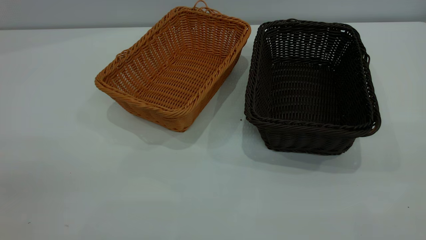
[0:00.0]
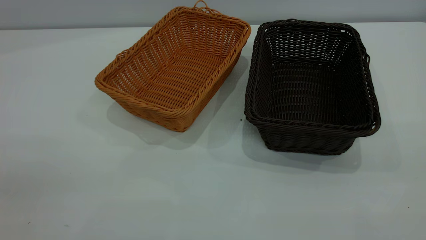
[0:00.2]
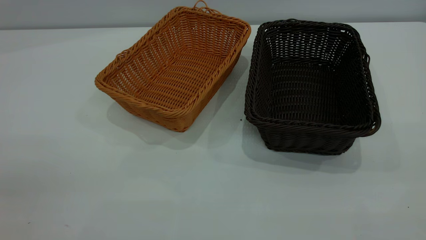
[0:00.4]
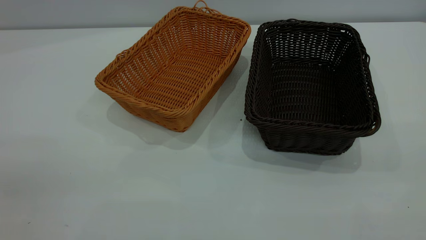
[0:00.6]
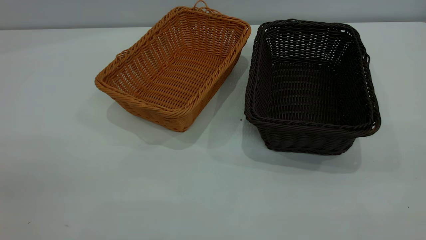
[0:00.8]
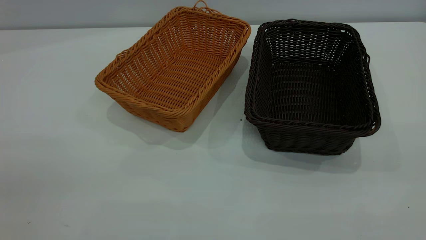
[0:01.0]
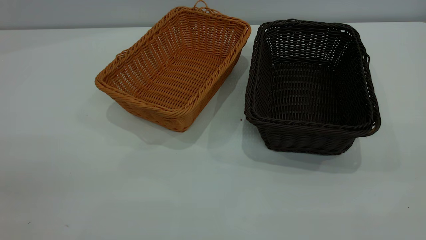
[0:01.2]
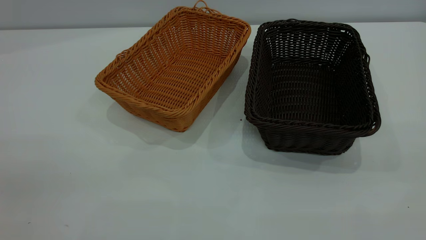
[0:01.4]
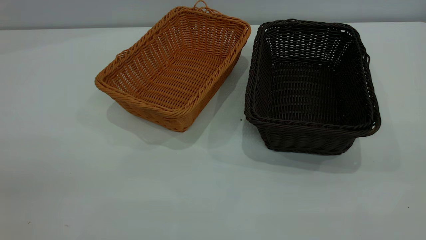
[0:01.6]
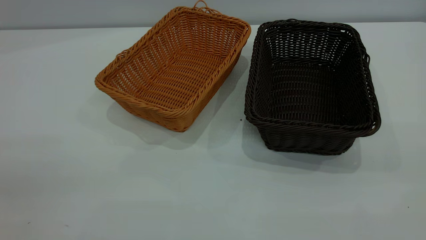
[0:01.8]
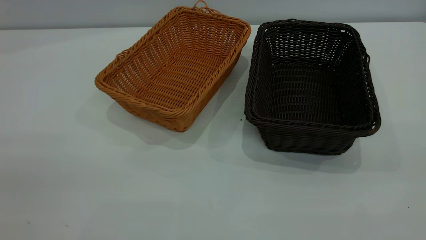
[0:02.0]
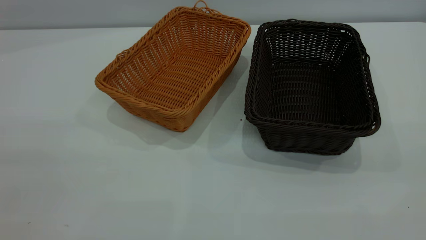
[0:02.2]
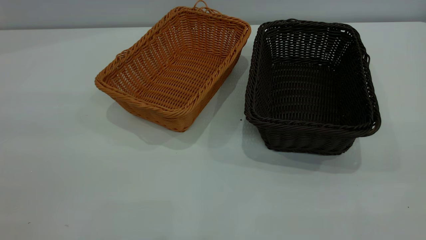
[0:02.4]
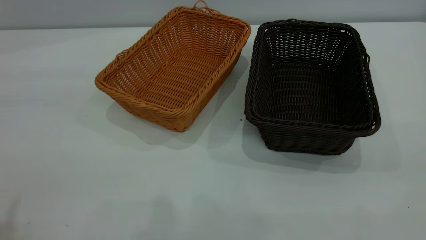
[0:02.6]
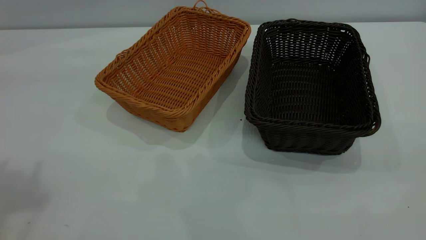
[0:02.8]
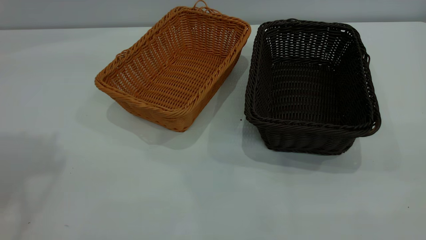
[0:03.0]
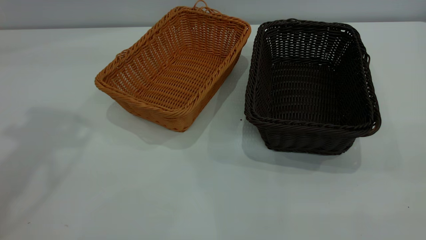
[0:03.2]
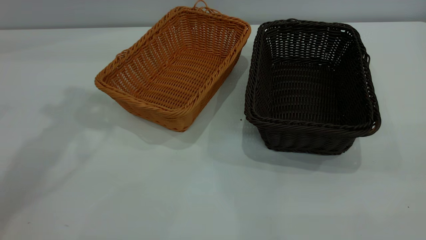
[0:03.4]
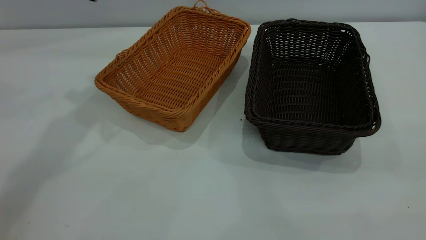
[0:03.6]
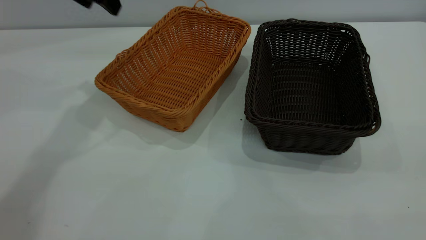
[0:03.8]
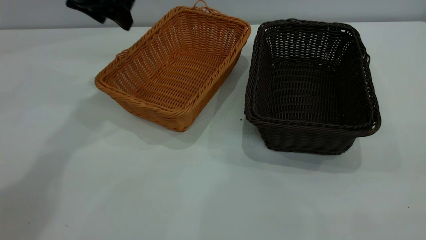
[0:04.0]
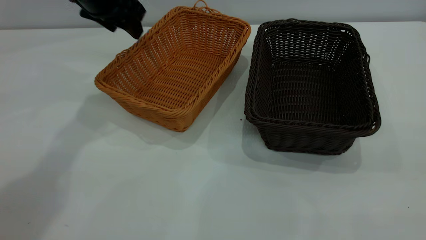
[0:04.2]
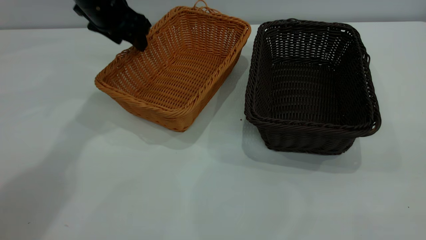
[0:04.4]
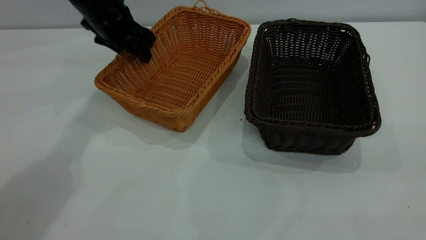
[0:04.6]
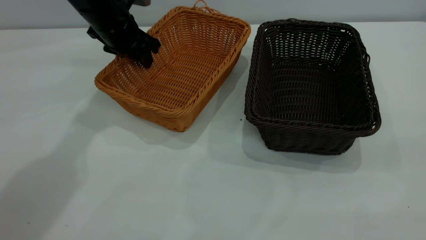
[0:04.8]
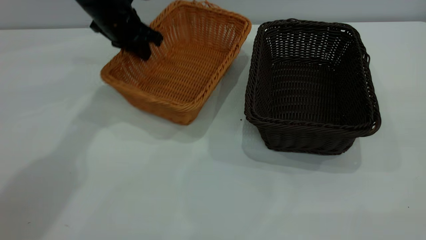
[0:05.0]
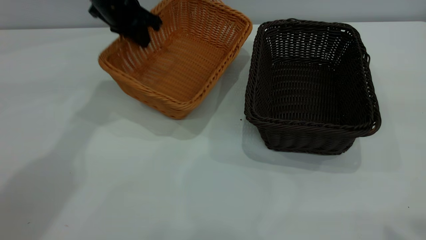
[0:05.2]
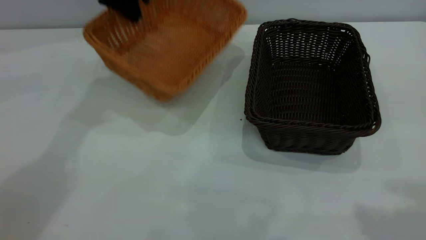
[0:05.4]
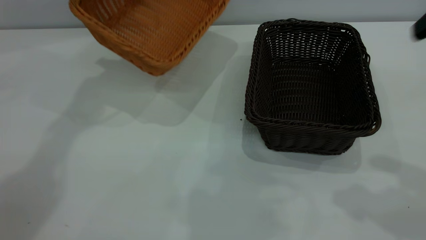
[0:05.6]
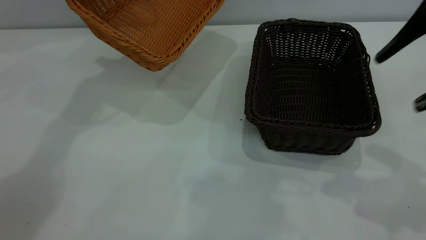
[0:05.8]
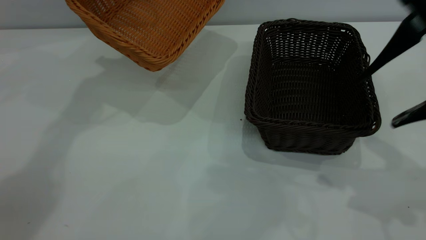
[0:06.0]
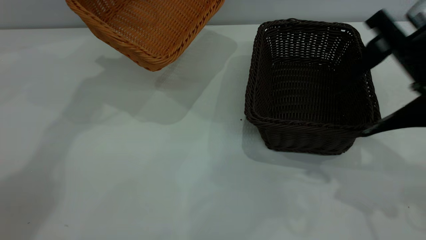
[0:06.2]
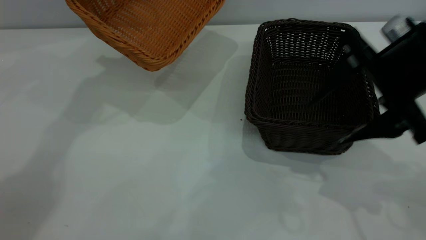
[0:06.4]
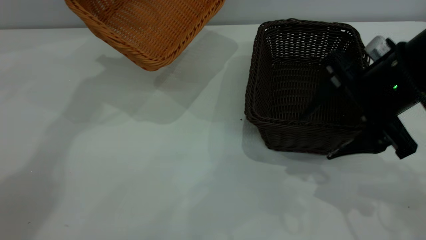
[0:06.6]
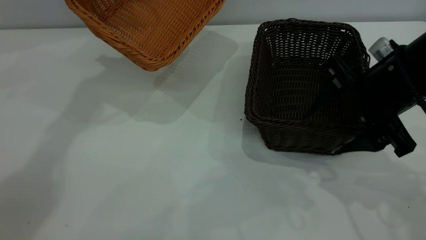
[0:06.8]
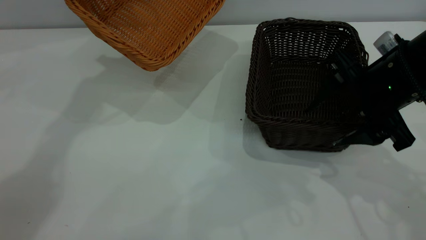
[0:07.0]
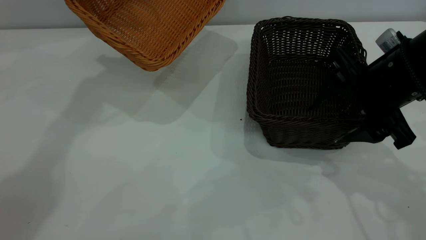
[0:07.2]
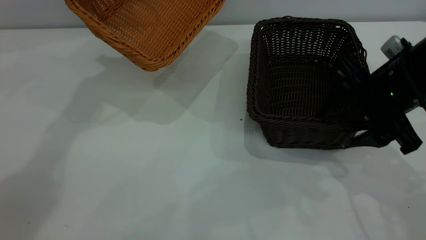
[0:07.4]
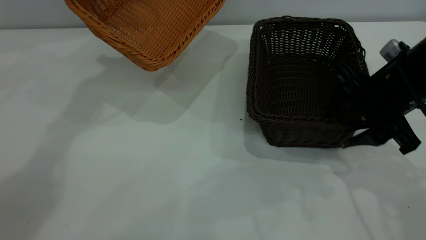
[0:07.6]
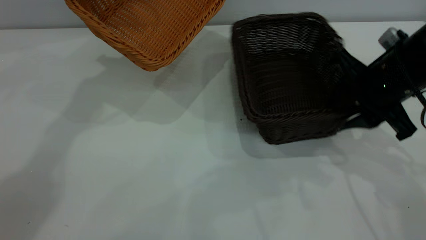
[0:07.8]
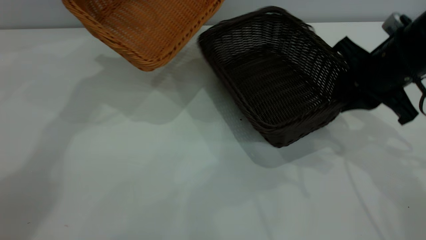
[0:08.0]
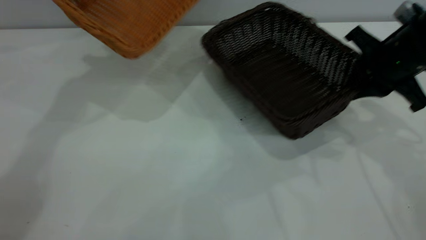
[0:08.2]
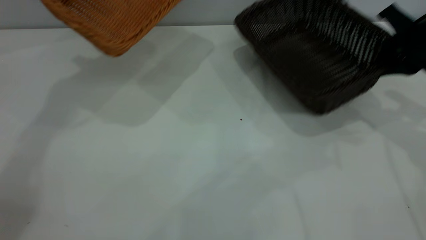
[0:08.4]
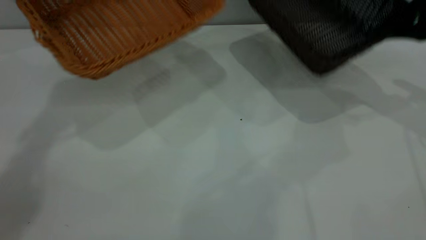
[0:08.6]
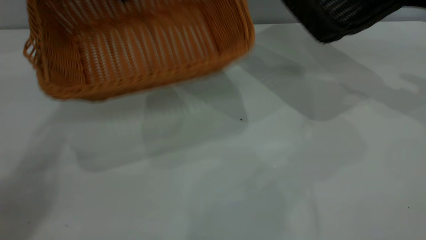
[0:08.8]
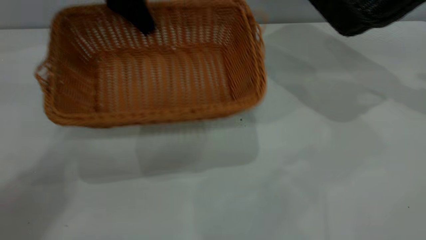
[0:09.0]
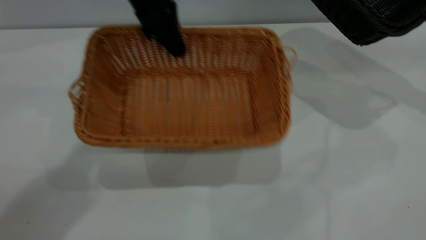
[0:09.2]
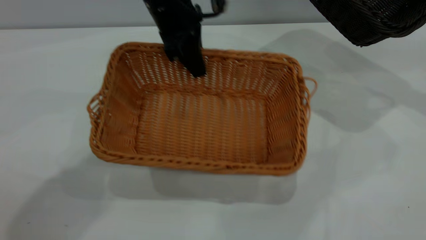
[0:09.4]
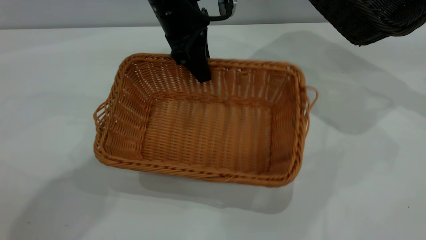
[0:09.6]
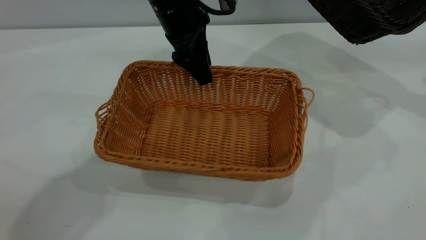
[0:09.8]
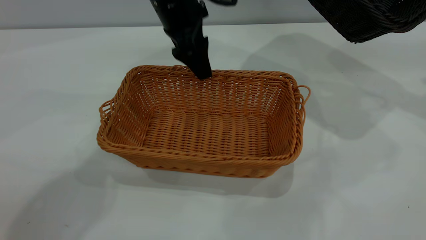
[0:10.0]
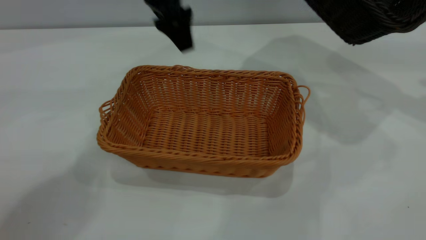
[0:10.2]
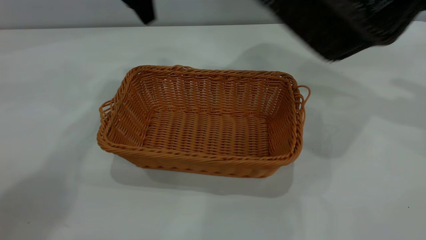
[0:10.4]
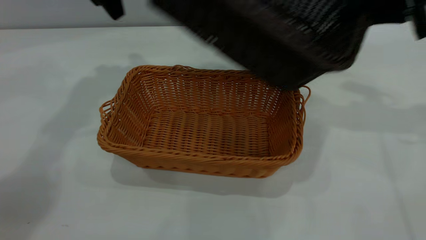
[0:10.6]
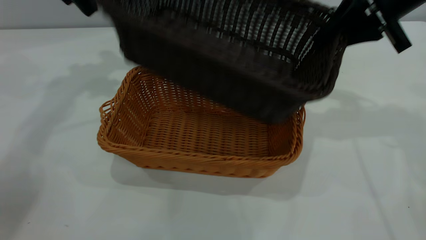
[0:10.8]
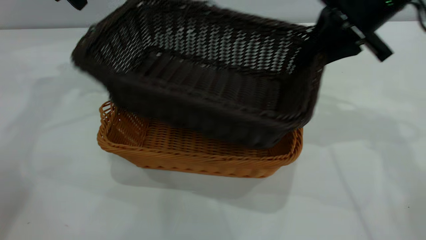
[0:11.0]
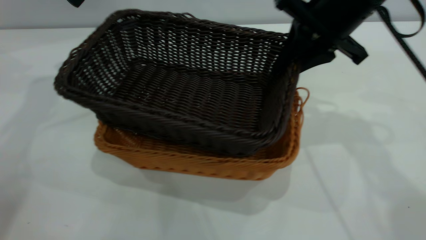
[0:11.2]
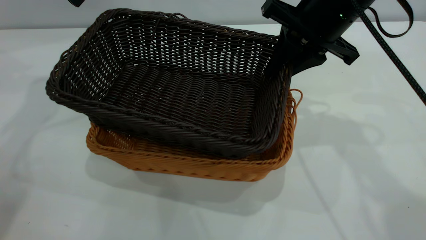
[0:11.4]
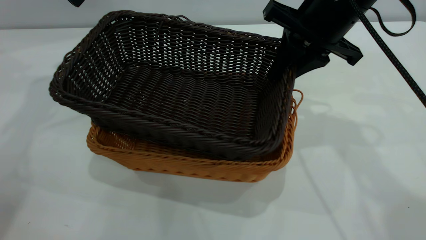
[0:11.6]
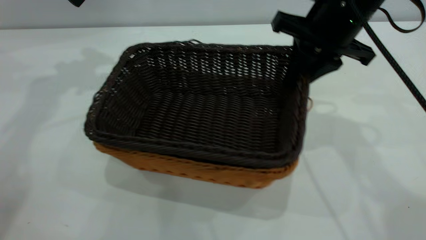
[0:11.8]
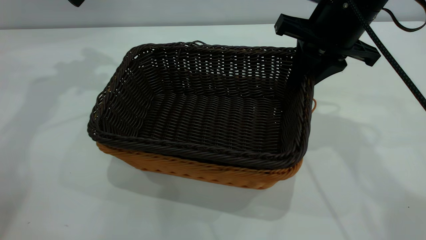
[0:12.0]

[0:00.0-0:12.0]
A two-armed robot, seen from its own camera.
Task of the whole recording: the left gripper grasp the brown basket and place it in the center of the table, the right gripper grasp the black basket and place it inside the brown one.
Step, 0:00.0 to 0:08.2: Pick up the light basket with the right gripper.
Step, 0:08.6 to 0:10.2: Place the light-colored basket in the center.
0:00.0 to 0:01.6: The two grippers keep their place.
0:03.0 to 0:04.4: The left gripper is displaced downward, forward and to the right by about 35 cm.
0:04.4 to 0:06.0: The right gripper goes roughly 30 cm forward and downward, while the left gripper goes about 10 cm upward, and closes its fingers.
0:06.0 to 0:07.6: The right gripper heads downward, covering about 10 cm.
0:07.6 to 0:09.0: The left gripper goes roughly 5 cm to the right. Meanwhile the right gripper shifts about 25 cm to the right, forward and upward, and closes.
0:09.0 to 0:10.4: The left gripper goes to the right and returns, about 10 cm each way, and opens its fingers. The right gripper moves to the left, approximately 5 cm.
0:10.4 to 0:12.0: The two grippers go about 15 cm to the left.

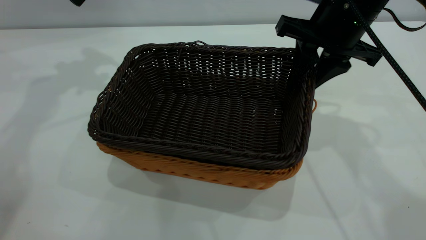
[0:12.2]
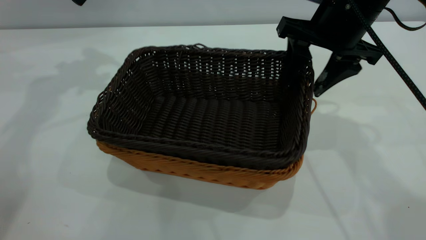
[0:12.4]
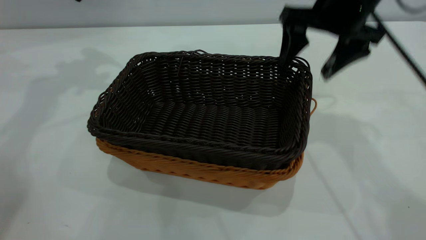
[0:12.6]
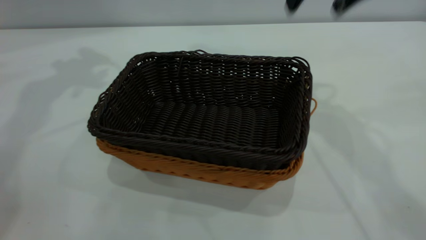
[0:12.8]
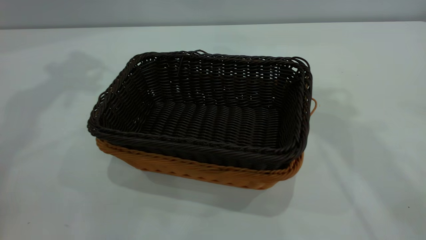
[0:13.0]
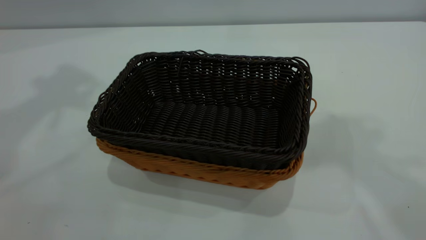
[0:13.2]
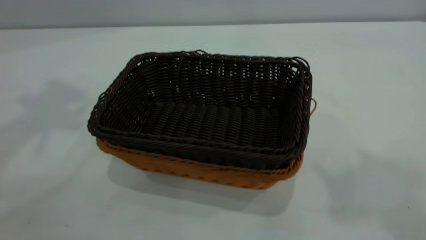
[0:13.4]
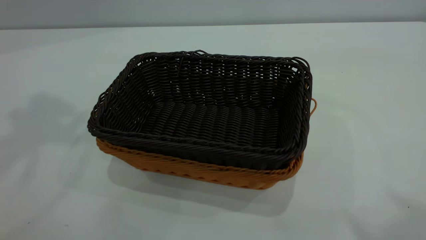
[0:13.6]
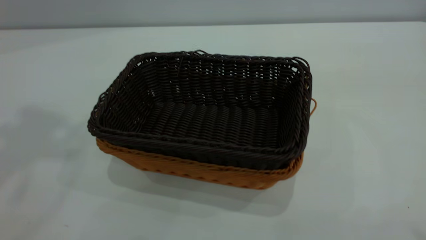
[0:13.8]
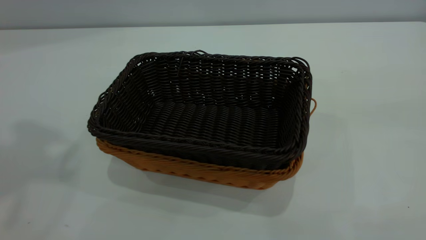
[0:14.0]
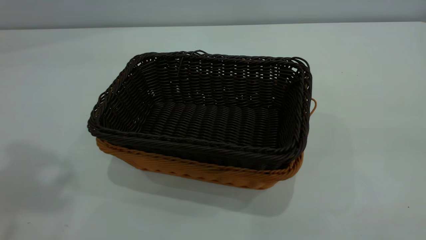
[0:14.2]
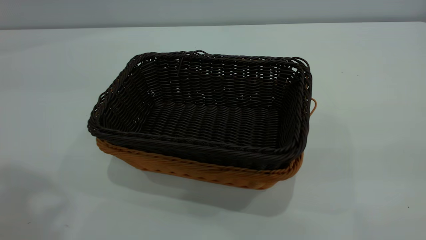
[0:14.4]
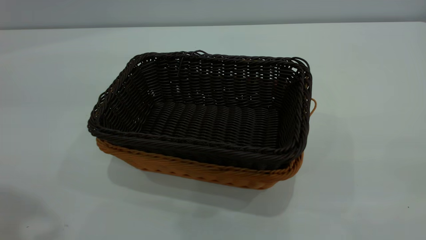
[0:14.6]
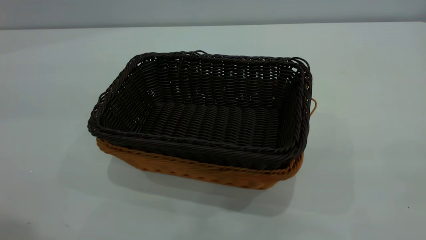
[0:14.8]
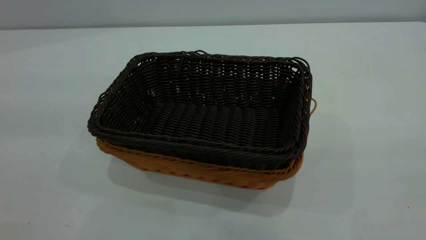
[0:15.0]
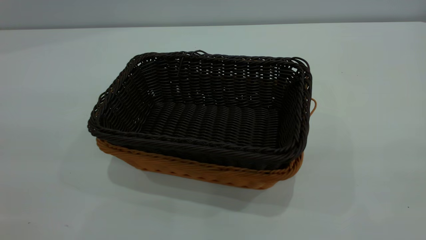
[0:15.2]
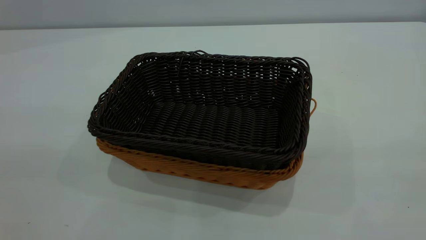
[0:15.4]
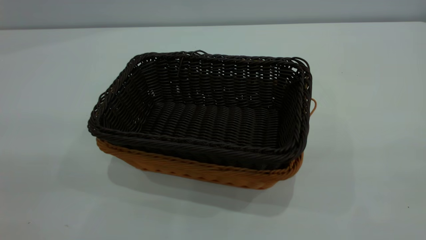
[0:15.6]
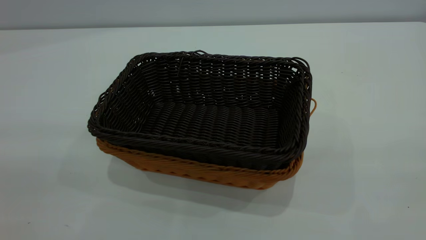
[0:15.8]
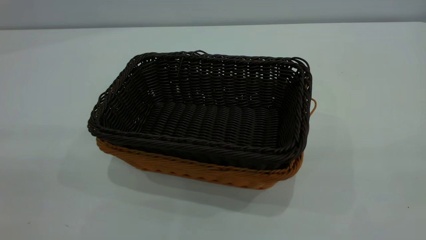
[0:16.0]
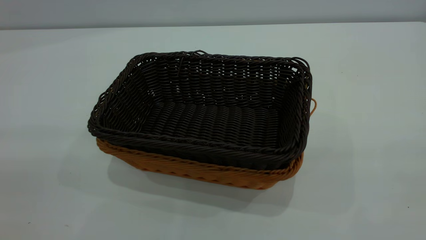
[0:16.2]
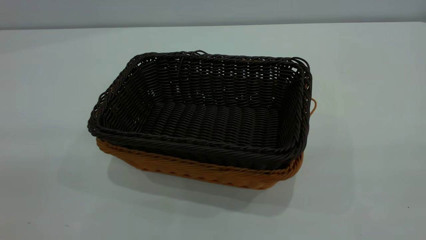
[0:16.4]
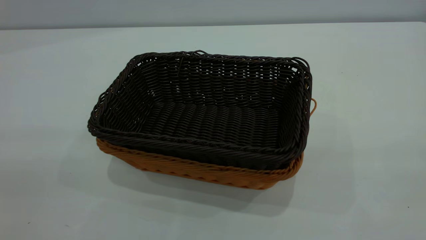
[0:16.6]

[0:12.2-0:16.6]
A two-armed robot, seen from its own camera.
Task of the whole recording: the left gripper grasp the brown basket and place it in the center of the table, the right gripper grasp the black basket and place it inside the brown one.
0:12.2 to 0:13.6: Both grippers travel together upward and backward, about 40 cm. The right gripper opens up.
